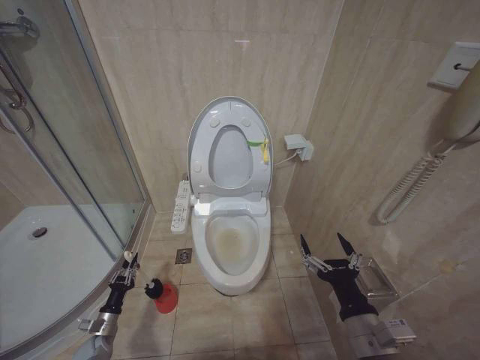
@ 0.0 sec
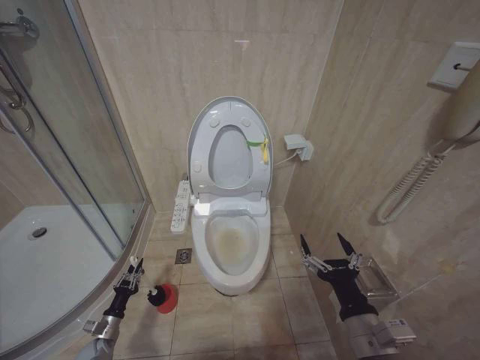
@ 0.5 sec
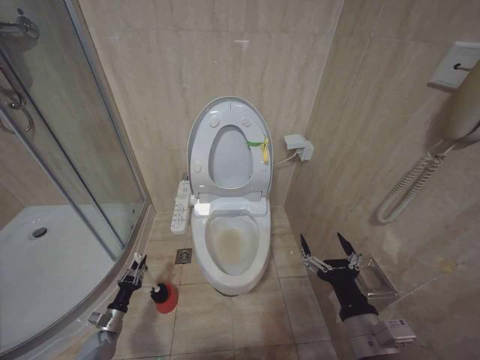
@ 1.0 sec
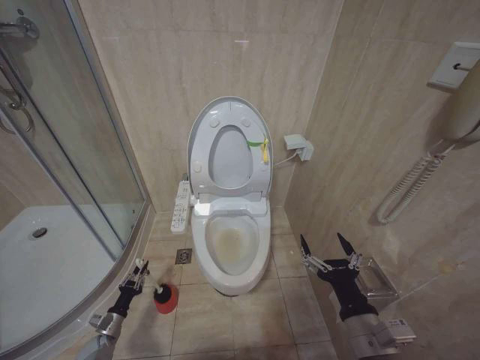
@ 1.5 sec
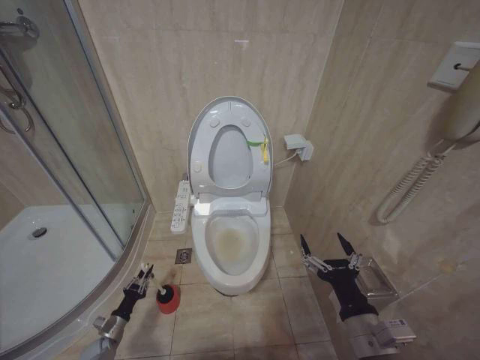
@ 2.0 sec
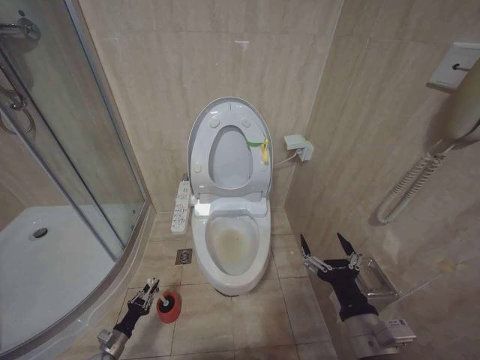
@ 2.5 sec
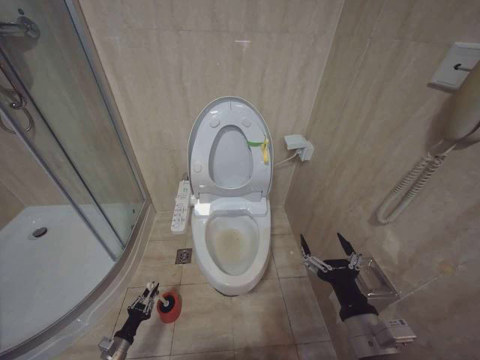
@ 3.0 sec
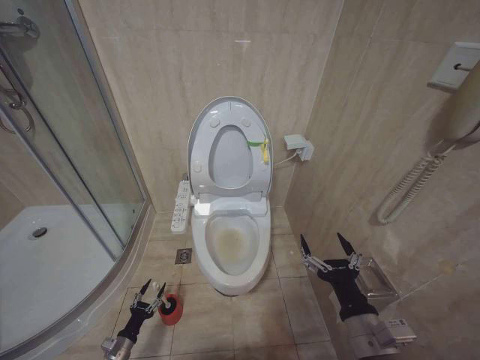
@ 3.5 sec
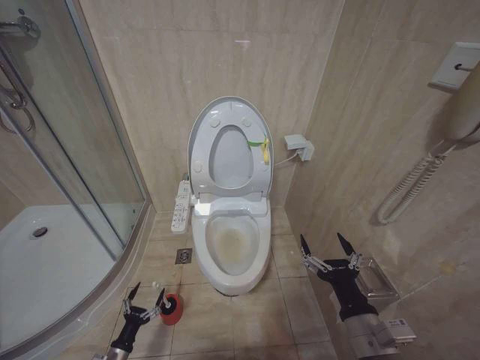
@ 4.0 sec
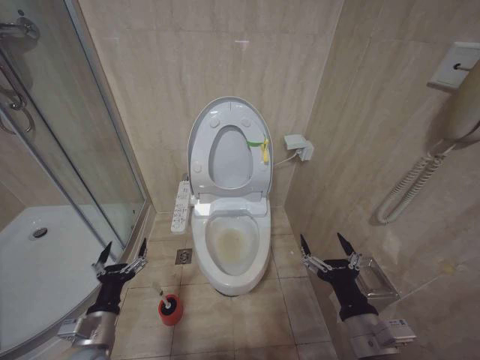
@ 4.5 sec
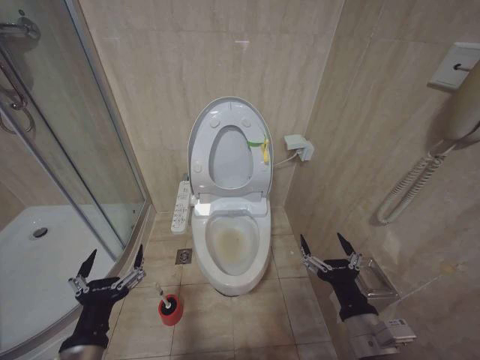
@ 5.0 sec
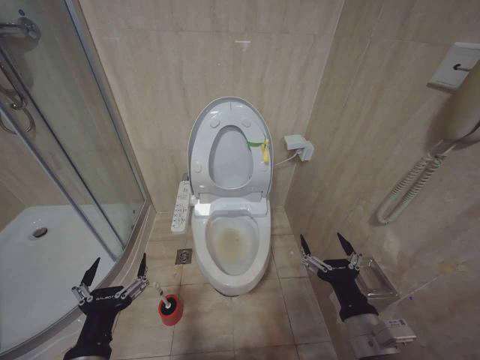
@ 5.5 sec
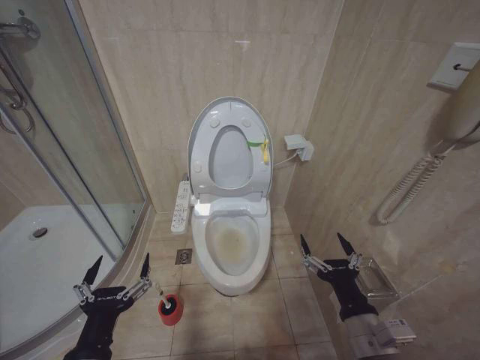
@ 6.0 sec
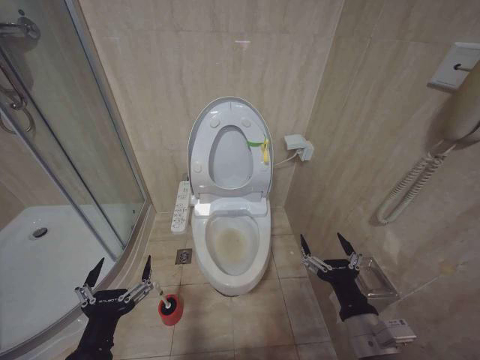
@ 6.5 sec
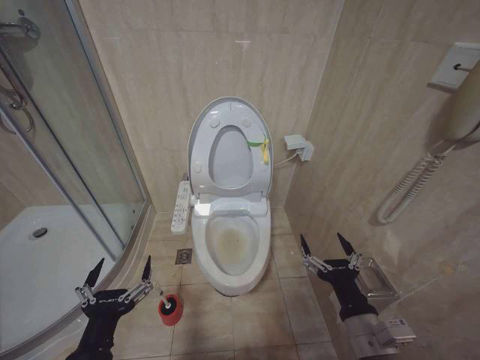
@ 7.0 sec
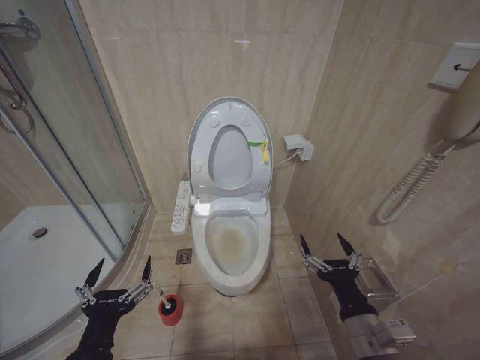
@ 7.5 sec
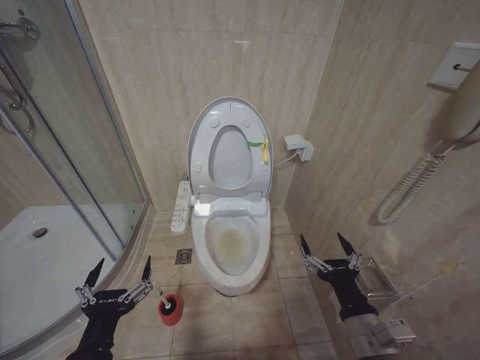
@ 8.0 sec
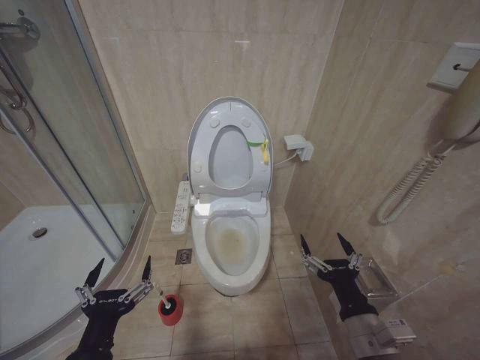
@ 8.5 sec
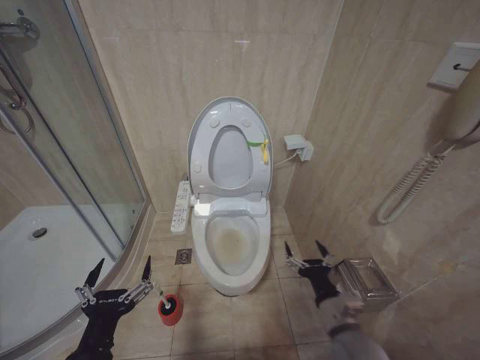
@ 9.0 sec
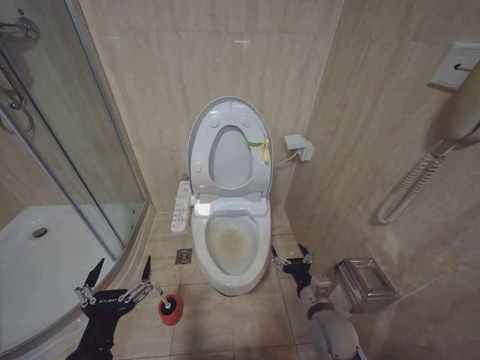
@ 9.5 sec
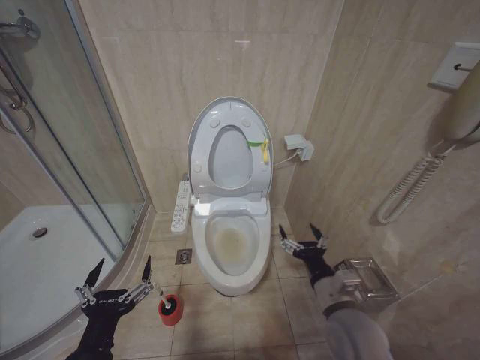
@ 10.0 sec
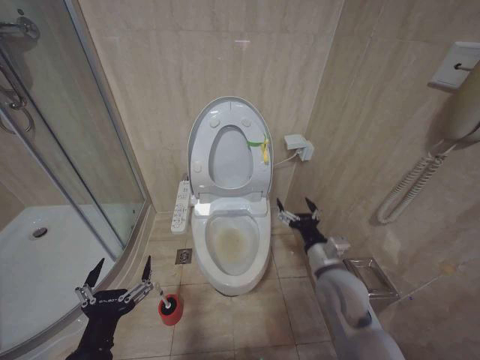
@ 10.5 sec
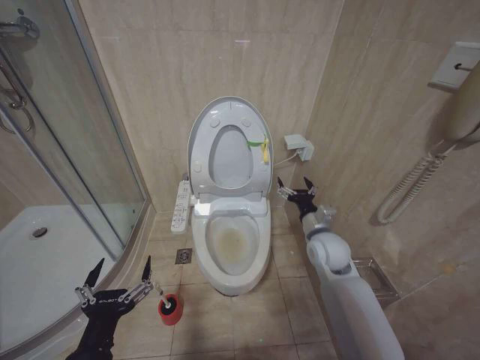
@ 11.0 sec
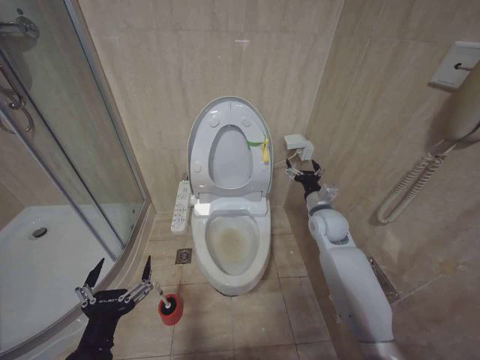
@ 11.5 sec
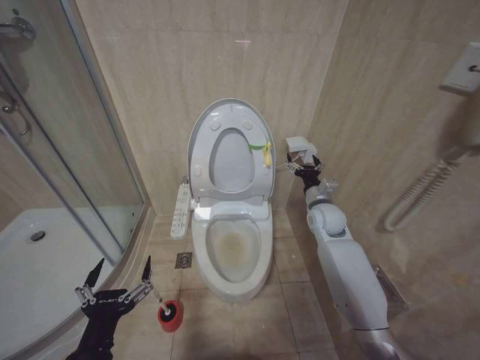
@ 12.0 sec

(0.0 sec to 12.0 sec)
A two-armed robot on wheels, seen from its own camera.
Task of the whole recording: Open the toilet lid, clean the toilet bowl with a toilet brush, close the toilet lid, and flush.
0.0 sec - 2.0 sec: The grippers move only a little.
2.0 sec - 4.0 sec: The left gripper moves backward and to the right, approximately 10 cm, and opens up.
4.0 sec - 6.0 sec: The left gripper travels upward by roughly 35 cm.
6.0 sec - 8.0 sec: Both grippers stay about where they are.
8.0 sec - 10.0 sec: The right gripper is displaced forward by some 10 cm.
10.0 sec - 12.0 sec: The right gripper moves forward, about 25 cm.

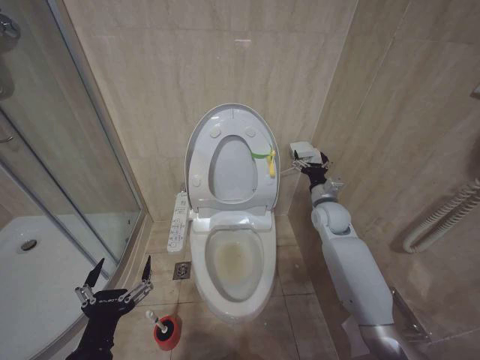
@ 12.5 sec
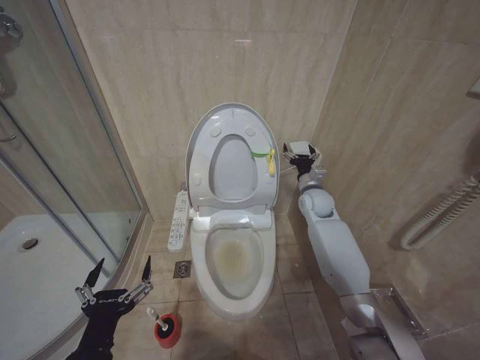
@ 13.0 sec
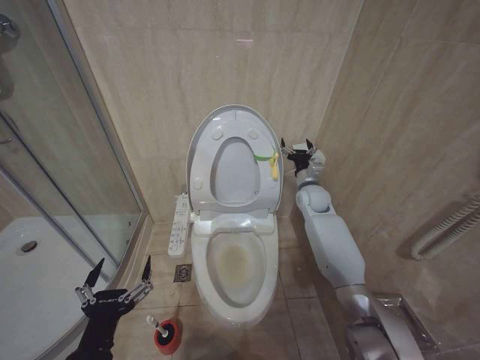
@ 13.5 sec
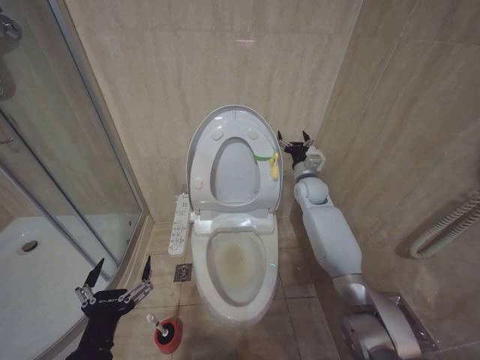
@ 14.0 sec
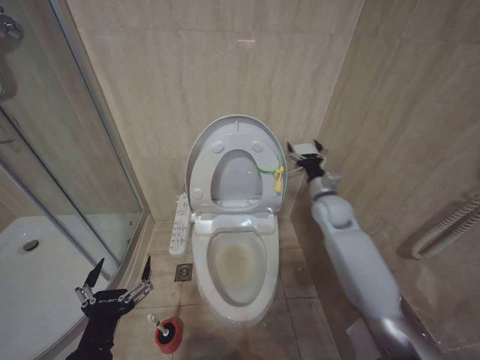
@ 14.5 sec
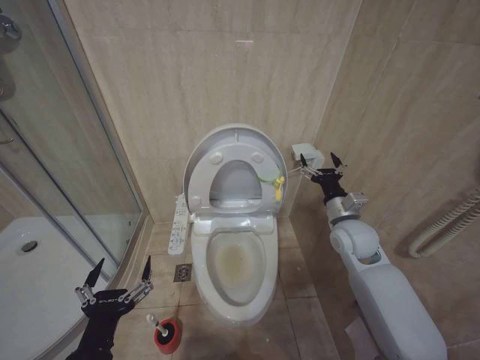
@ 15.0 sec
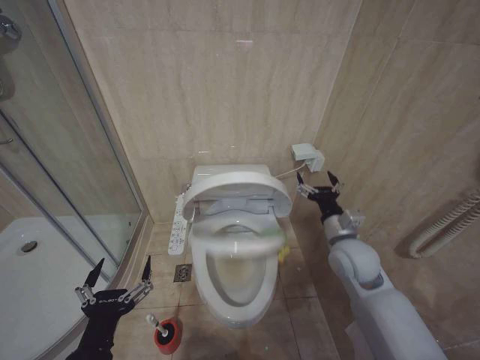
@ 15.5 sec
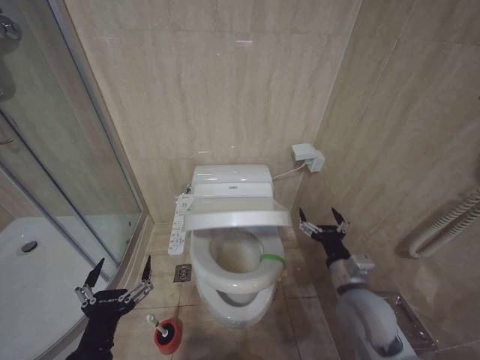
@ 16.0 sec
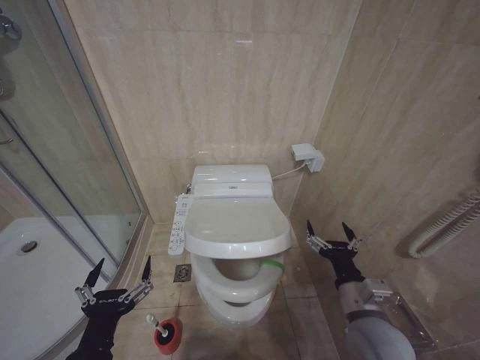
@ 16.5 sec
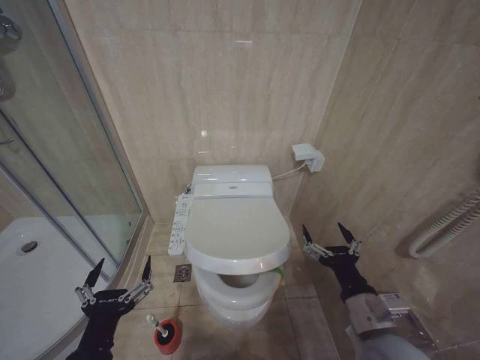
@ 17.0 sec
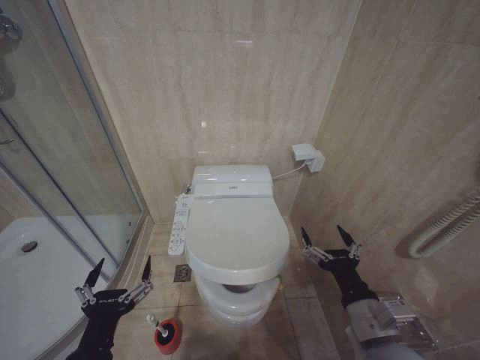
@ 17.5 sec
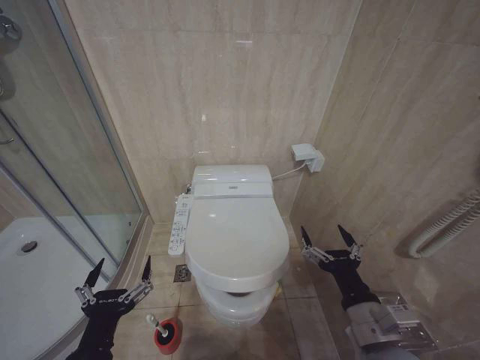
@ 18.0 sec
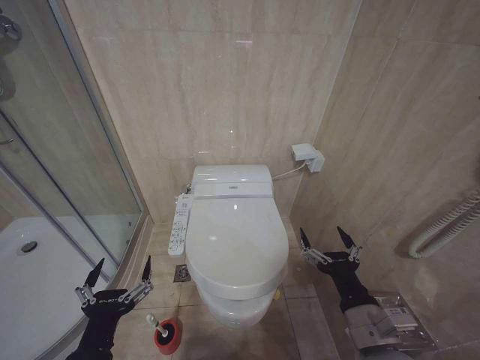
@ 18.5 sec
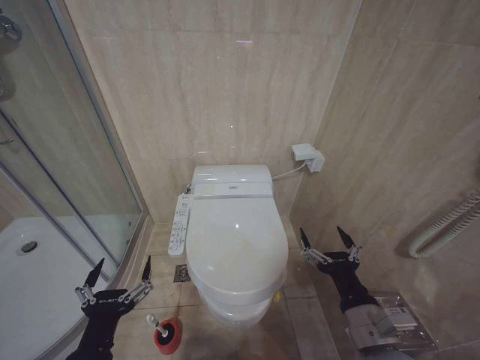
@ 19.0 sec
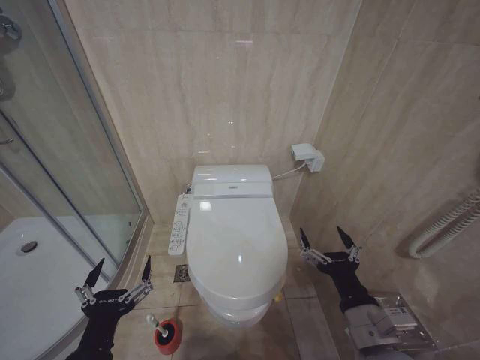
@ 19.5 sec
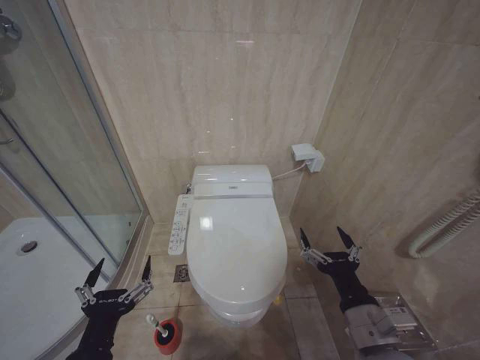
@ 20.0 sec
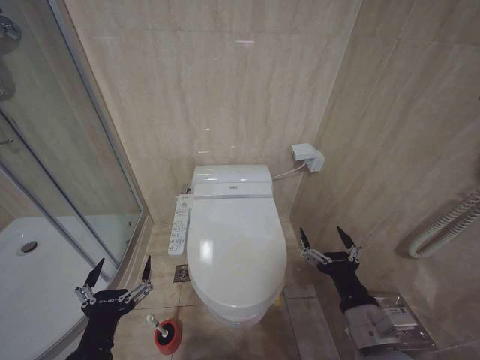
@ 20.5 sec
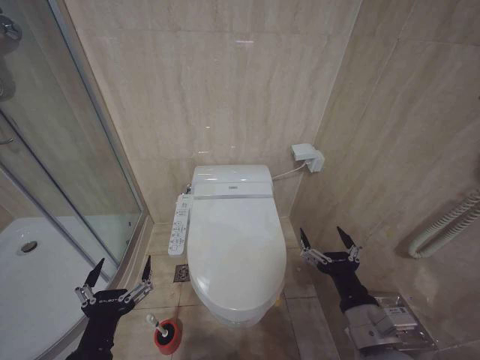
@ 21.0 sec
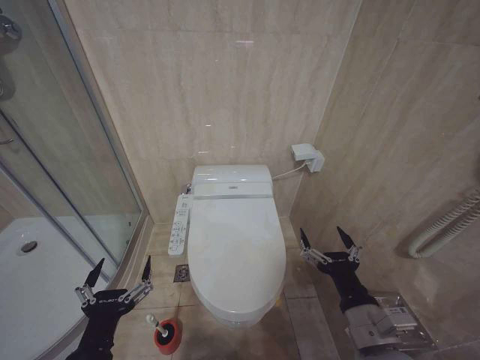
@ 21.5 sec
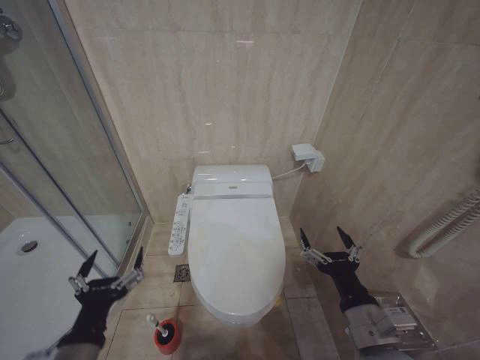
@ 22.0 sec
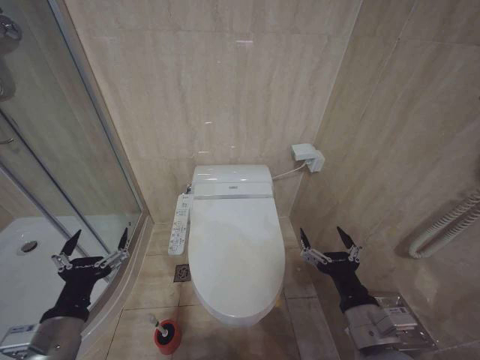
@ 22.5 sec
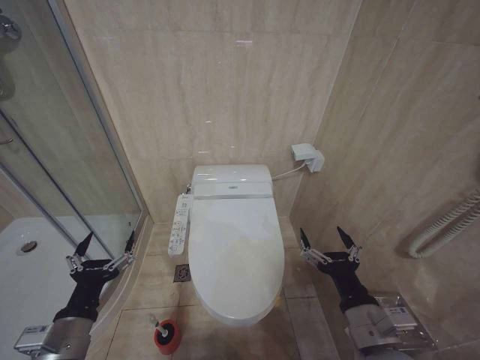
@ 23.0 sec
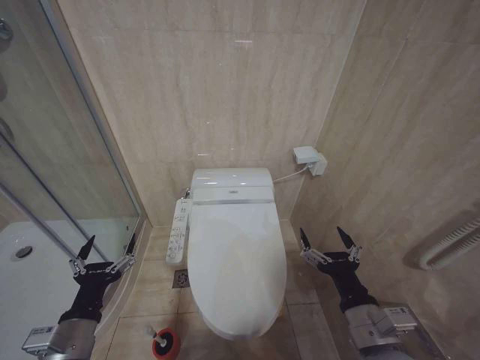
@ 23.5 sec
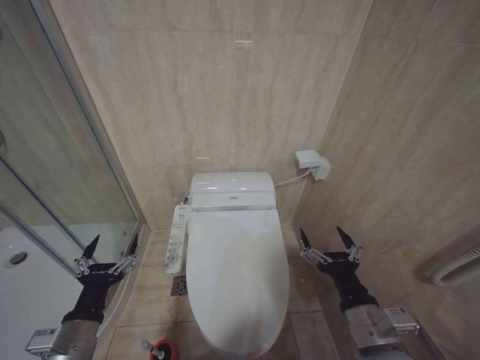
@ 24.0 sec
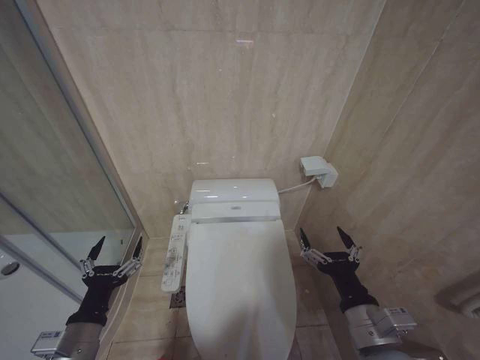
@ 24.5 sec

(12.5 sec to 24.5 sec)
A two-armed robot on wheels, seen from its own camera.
Task of the whole recording: Open the toilet lid, clean the toilet bowl with a toilet brush, close the toilet lid, and flush.
12.5 sec - 14.5 sec: The right gripper reaches some 10 cm forward, then returns.
14.5 sec - 16.5 sec: The right gripper heads backward, covering approximately 30 cm.
16.5 sec - 18.5 sec: The right gripper shifts some 5 cm backward.
18.5 sec - 20.5 sec: The two grippers keep their place.
20.5 sec - 22.5 sec: The left gripper shifts approximately 10 cm to the left and forward.
22.5 sec - 24.5 sec: The left gripper goes roughly 5 cm downward.

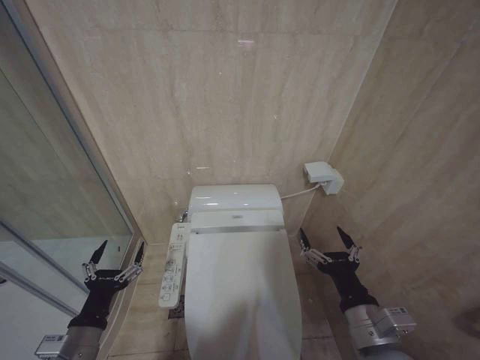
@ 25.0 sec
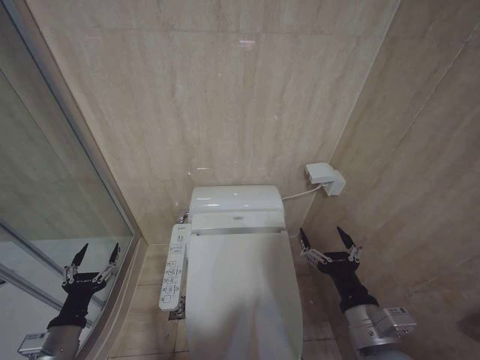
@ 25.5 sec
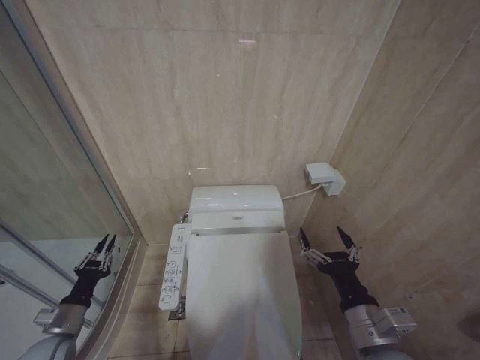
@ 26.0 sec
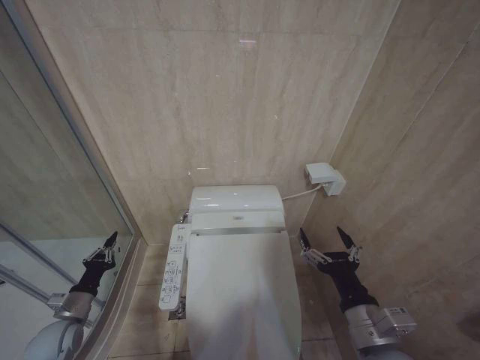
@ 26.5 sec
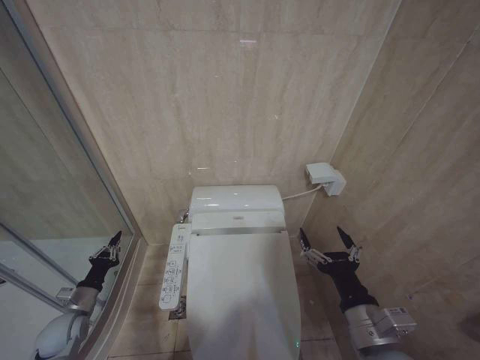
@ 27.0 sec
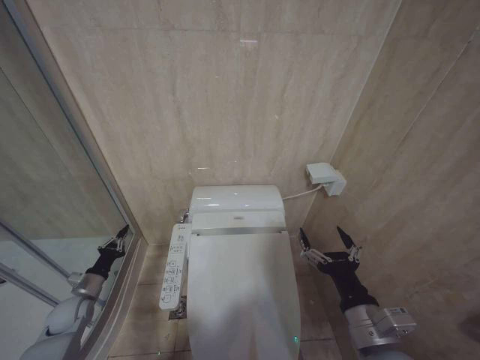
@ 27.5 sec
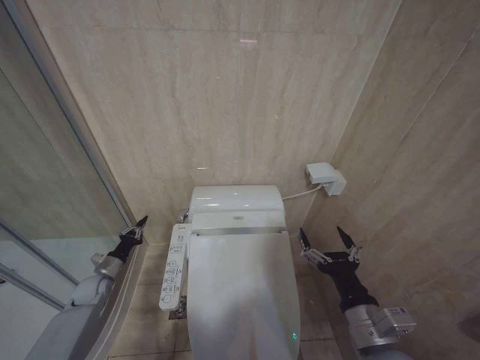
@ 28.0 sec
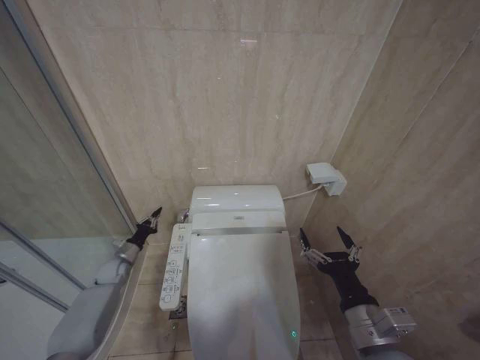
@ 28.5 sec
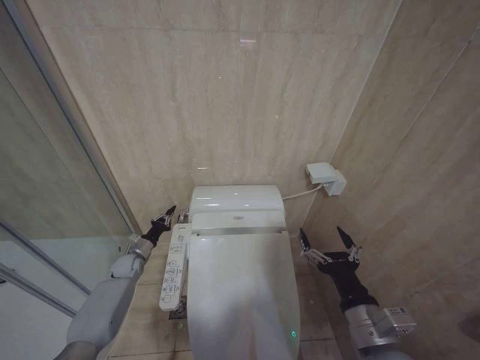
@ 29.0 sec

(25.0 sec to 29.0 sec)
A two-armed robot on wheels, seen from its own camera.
Task of the whole recording: Open the toilet lid, clean the toilet bowl with a toilet brush, close the toilet lid, and flush.
25.0 sec - 27.0 sec: The left gripper travels forward, to the left and downward by roughly 25 cm, and closes its fingers.
27.0 sec - 29.0 sec: The left gripper travels forward and to the right by about 20 cm.
